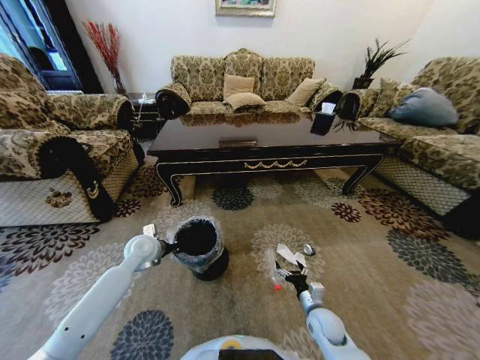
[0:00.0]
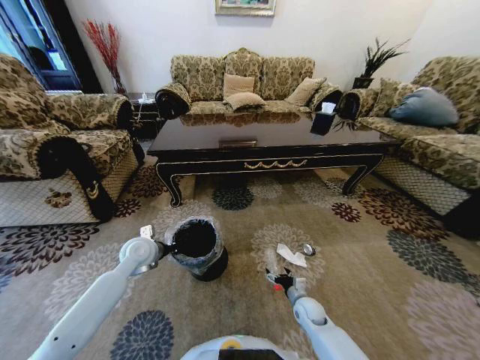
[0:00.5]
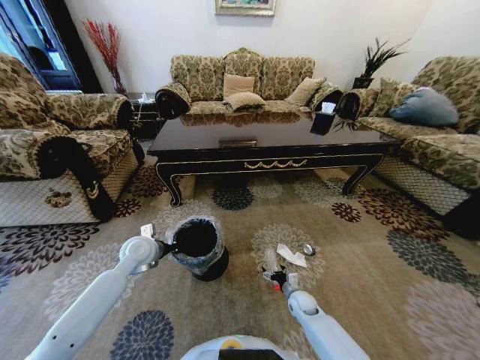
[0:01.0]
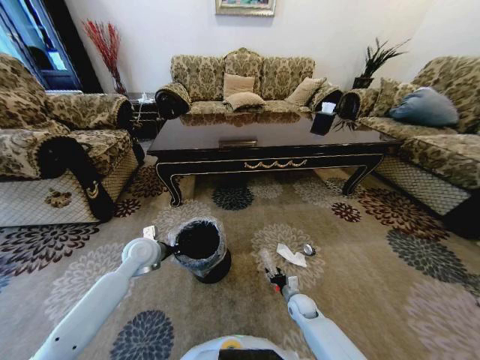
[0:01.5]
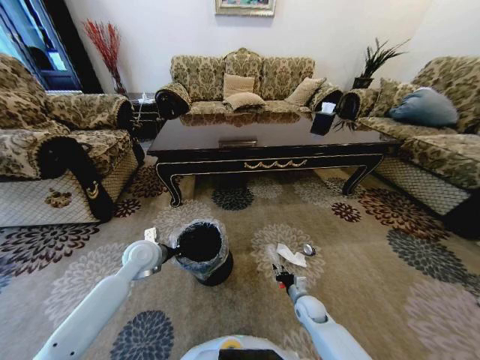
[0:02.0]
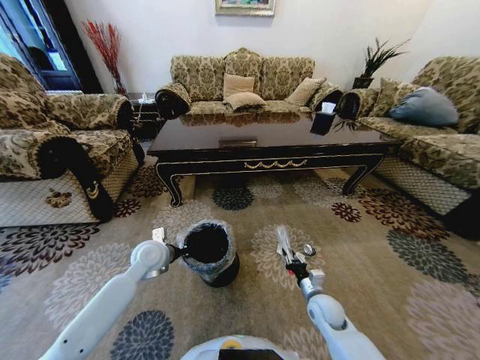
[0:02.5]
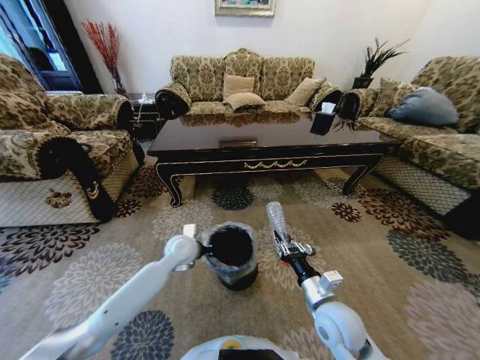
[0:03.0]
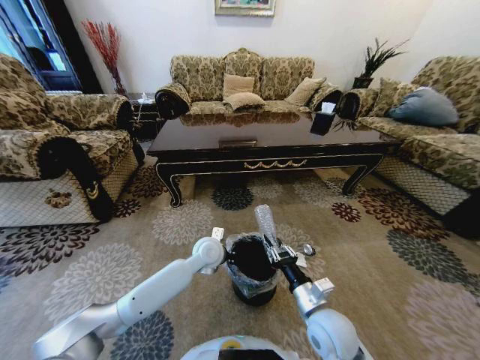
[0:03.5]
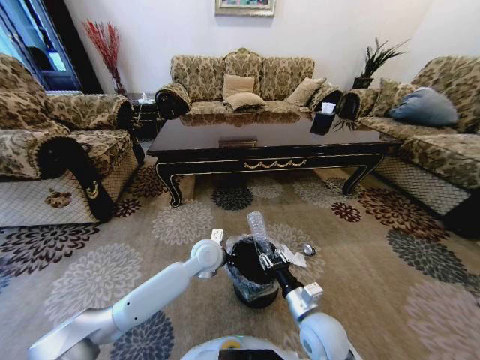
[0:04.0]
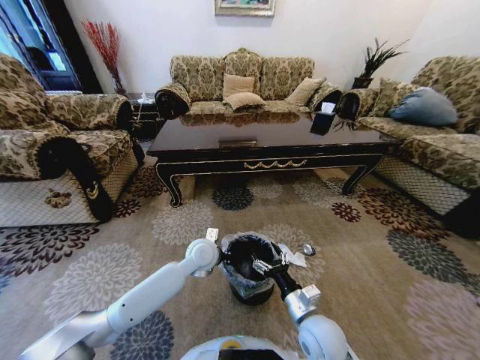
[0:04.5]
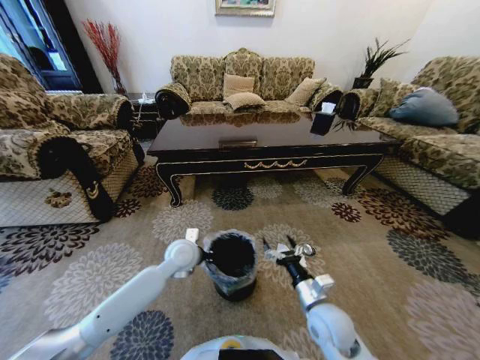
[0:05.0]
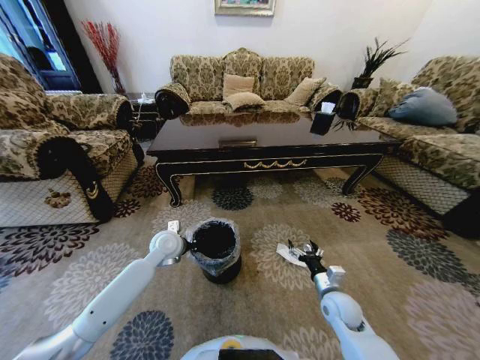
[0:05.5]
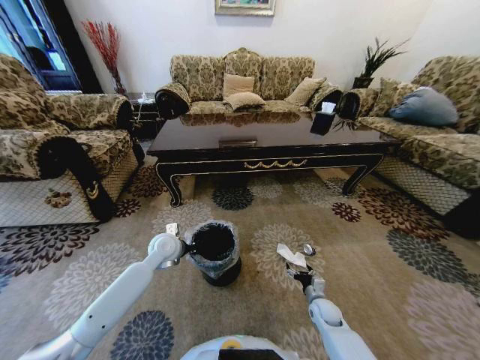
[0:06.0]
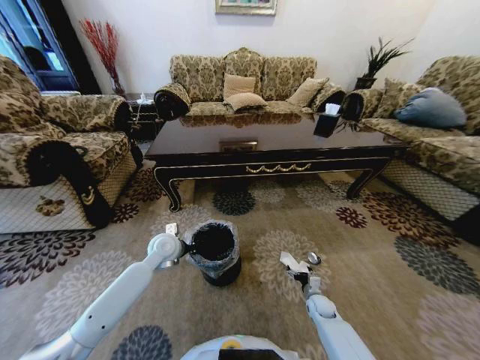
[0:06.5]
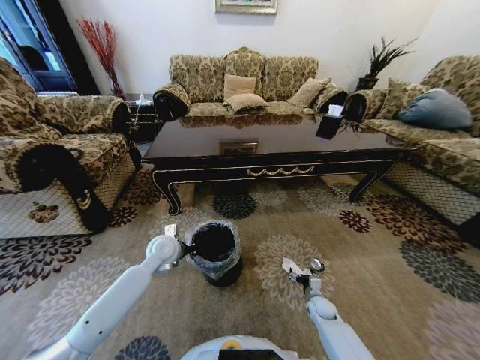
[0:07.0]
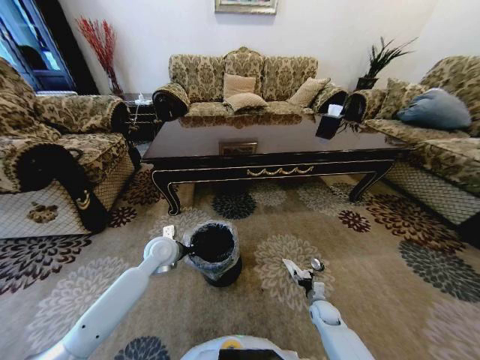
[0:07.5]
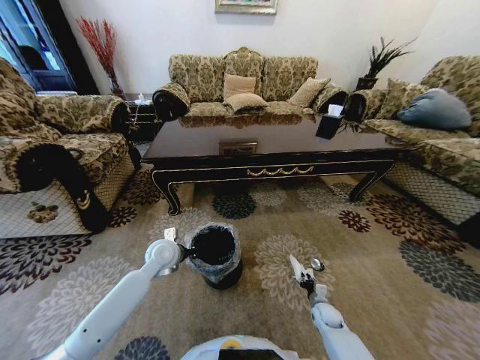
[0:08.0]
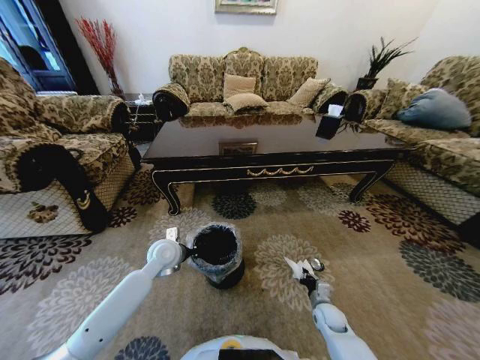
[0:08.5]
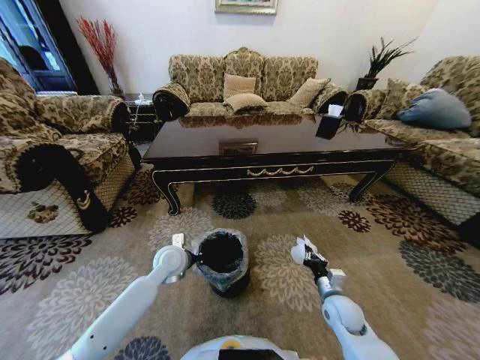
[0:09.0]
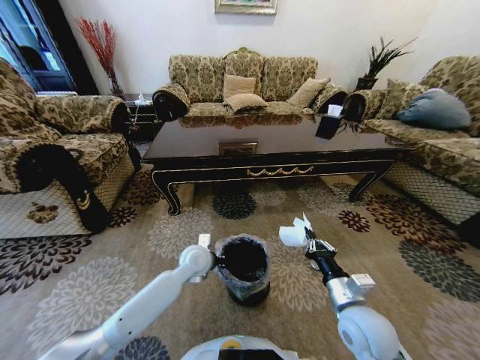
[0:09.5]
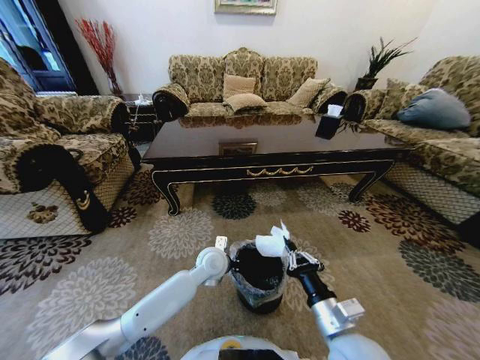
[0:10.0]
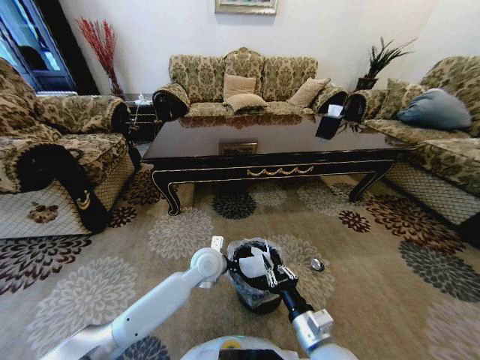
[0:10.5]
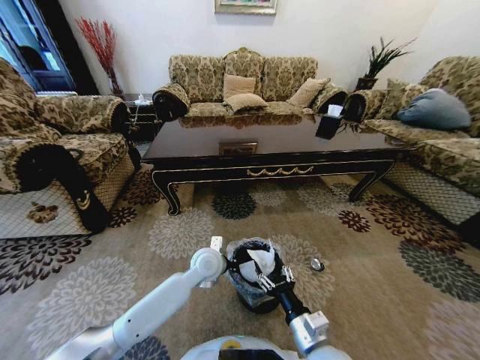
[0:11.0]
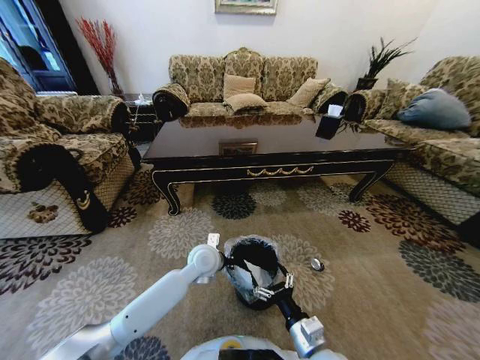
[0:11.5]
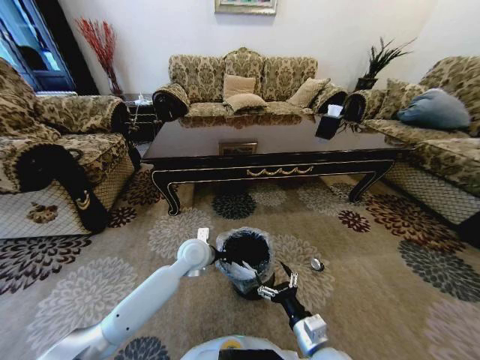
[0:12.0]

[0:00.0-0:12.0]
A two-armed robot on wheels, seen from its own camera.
Task of the whole recording: Move to the front of the table and pick up the trash from the floor, then place it into the trash bin.
0:00.0 to 0:02.0: The right gripper is displaced downward and forward by about 5 cm, and closes up.
0:02.0 to 0:04.0: The left gripper is displaced to the right by about 20 cm, while the right gripper moves upward, backward and to the left, approximately 25 cm.
0:04.0 to 0:06.0: The right gripper travels downward, to the right and forward by about 25 cm, and opens up; the left gripper heads to the left, covering some 15 cm.
0:06.0 to 0:08.0: The right gripper closes.
0:08.0 to 0:10.0: The left gripper heads to the right, covering some 15 cm; the right gripper goes roughly 35 cm upward, to the left and backward.
0:10.0 to 0:12.0: The left gripper shifts some 5 cm to the left, while the right gripper travels downward by some 10 cm, and opens its fingers.

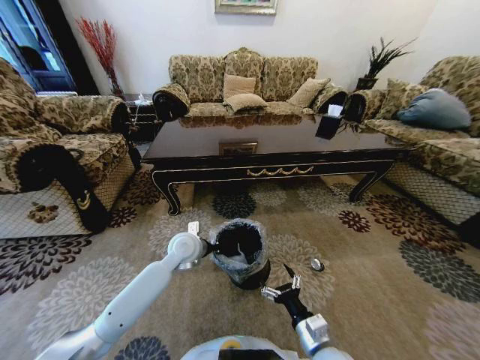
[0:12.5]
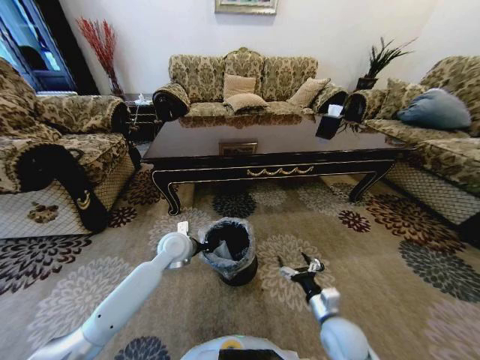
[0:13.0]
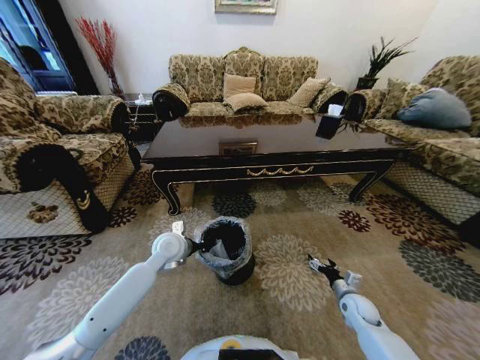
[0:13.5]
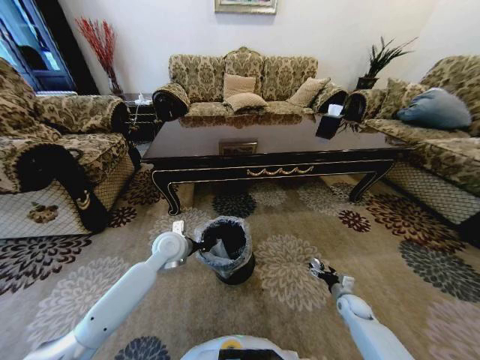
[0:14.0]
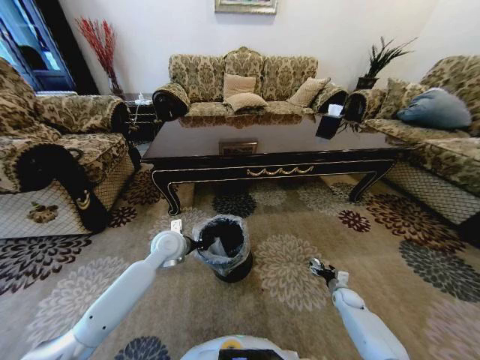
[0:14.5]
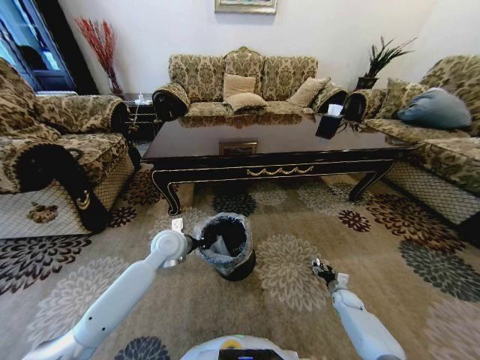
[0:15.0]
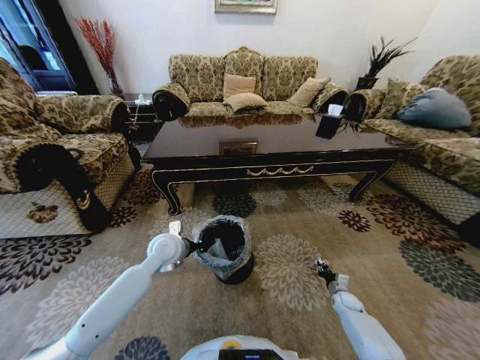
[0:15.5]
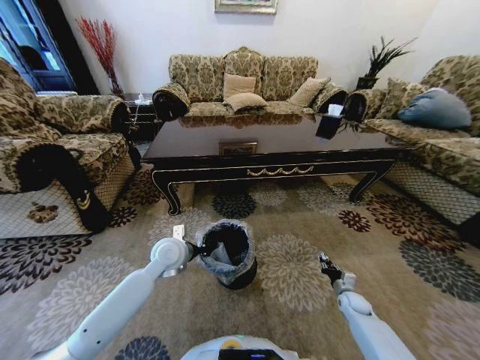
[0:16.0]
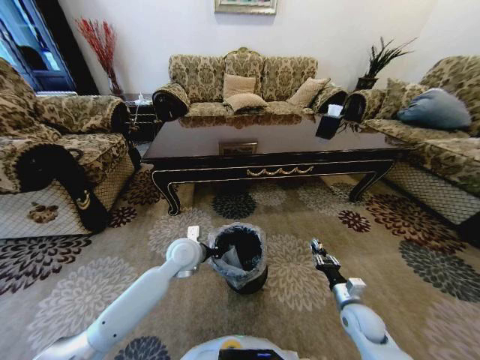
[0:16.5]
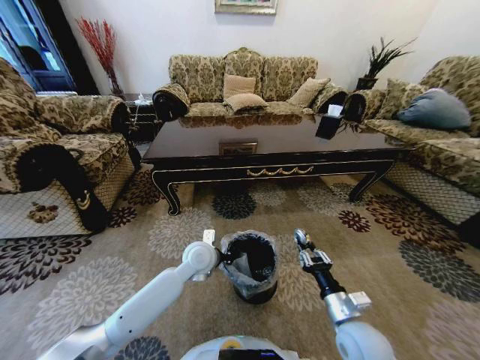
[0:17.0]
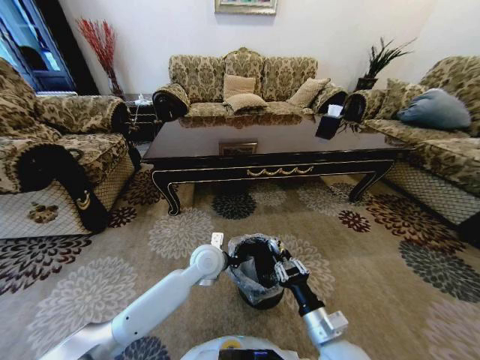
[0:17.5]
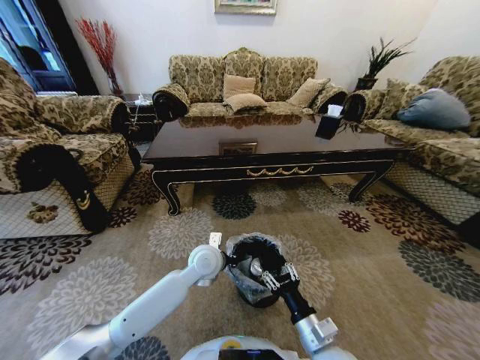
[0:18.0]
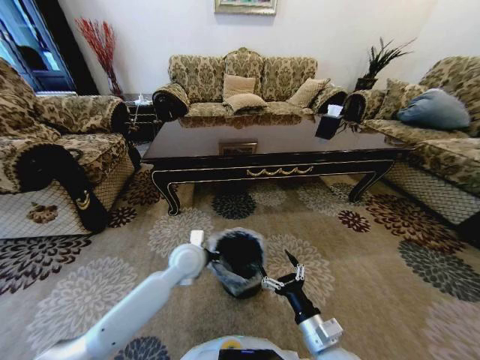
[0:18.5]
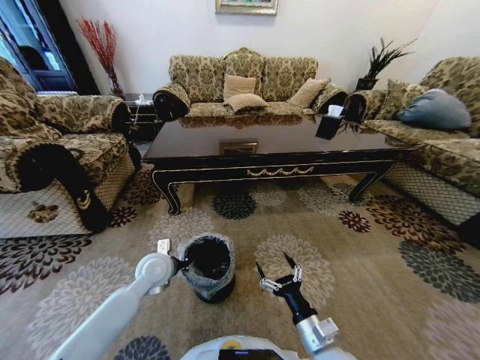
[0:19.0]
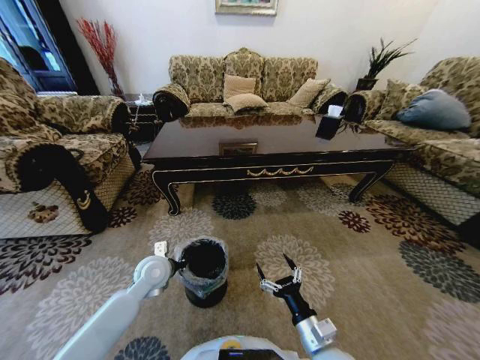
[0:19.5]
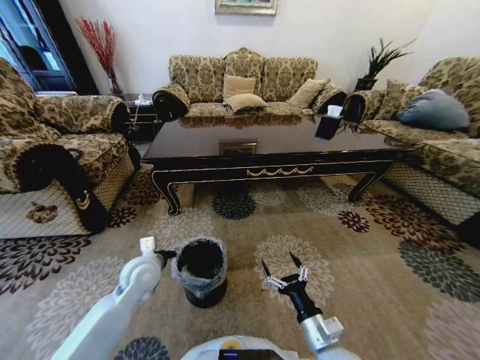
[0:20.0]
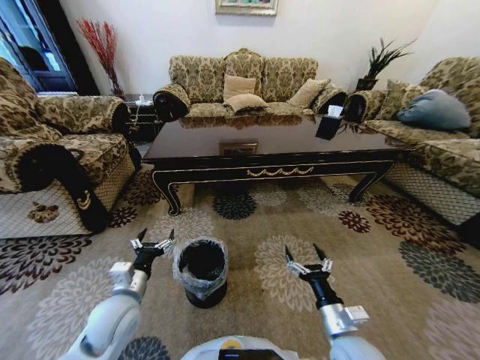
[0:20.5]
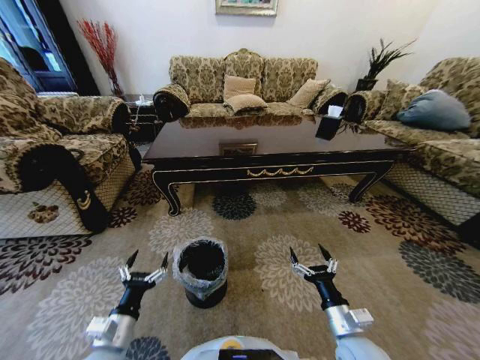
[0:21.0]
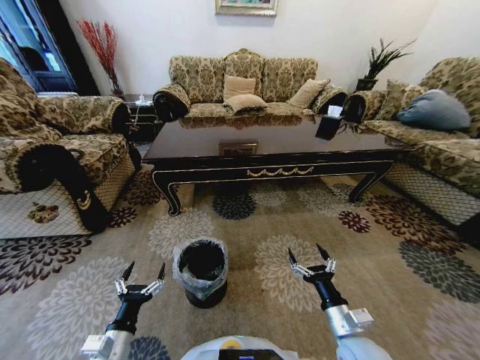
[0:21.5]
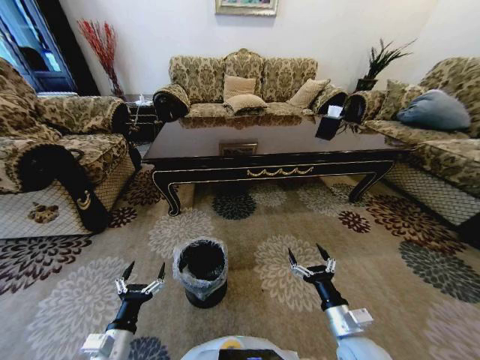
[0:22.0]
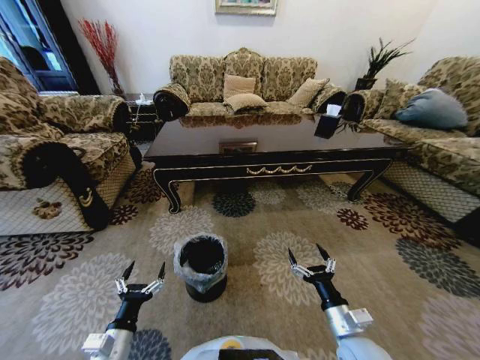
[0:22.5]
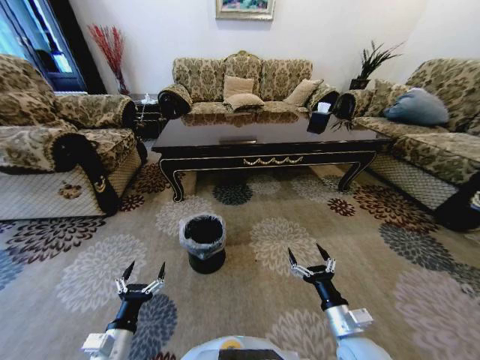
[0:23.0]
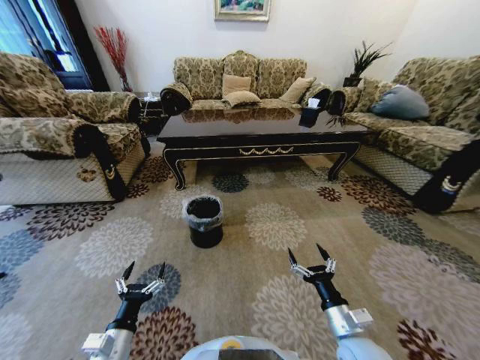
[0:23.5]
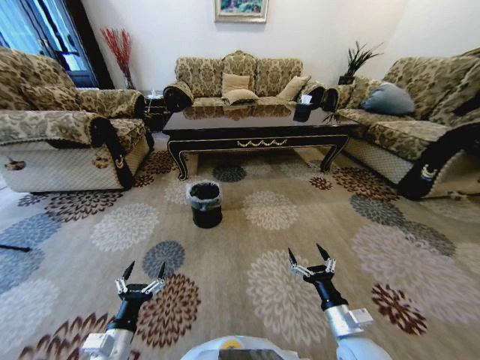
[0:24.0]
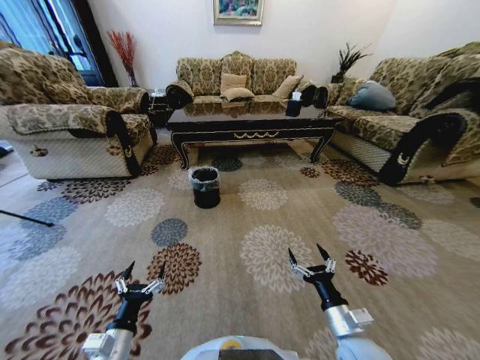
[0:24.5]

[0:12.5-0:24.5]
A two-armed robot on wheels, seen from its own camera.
Task of the whole recording: Move to the front of the table and pick up the trash from the floor, then place it into the trash bin.
0:12.5 to 0:14.5: The right gripper shifts approximately 40 cm to the right, downward and forward, while the left gripper heads to the left, covering approximately 5 cm.
0:14.5 to 0:16.5: The right gripper travels upward, backward and to the left by about 20 cm, and closes up, while the left gripper heads to the right, covering some 5 cm.
0:16.5 to 0:18.5: The right gripper moves to the left, backward and upward, about 20 cm, and opens.
0:18.5 to 0:20.5: The left gripper moves to the left and backward, about 20 cm, and opens up.
0:20.5 to 0:22.5: The left gripper is displaced backward and downward by approximately 15 cm.

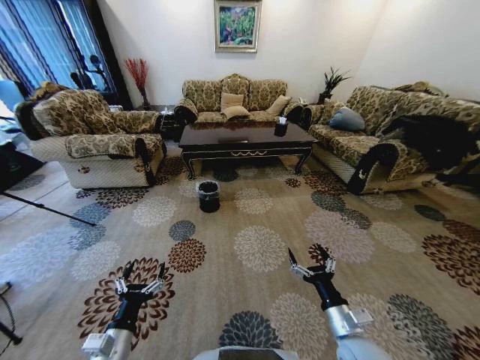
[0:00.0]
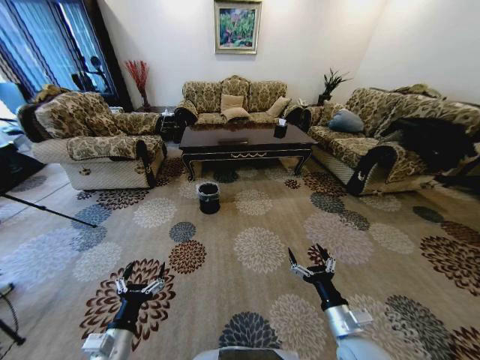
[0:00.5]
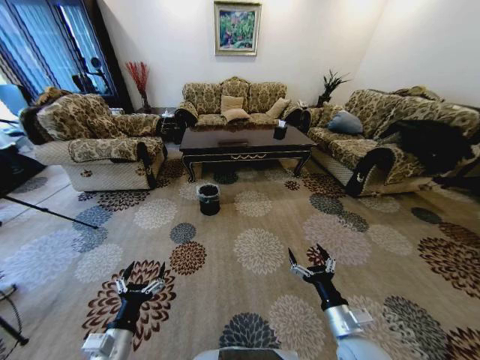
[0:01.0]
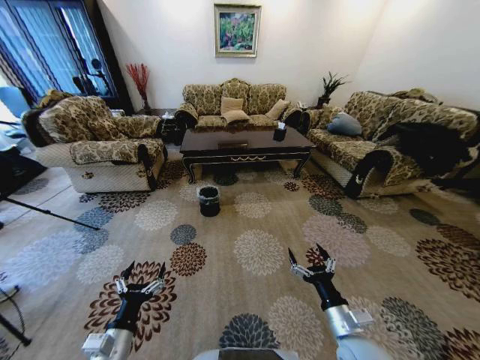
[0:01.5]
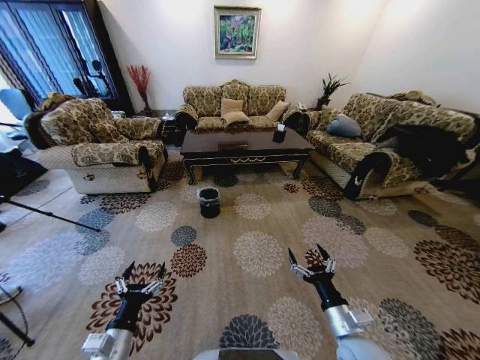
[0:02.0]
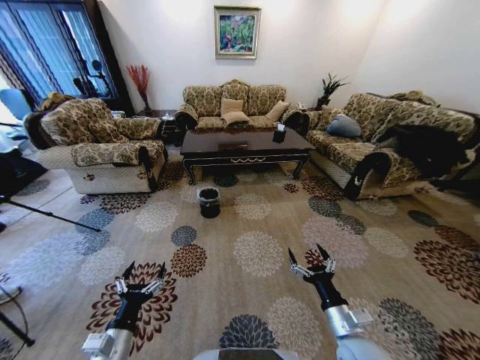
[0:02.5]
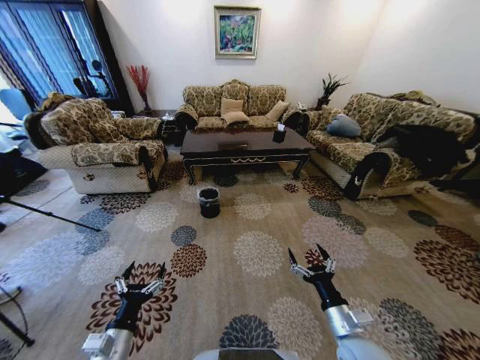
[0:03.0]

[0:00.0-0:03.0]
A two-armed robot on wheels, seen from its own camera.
Task of the whole recording: Move to the front of the table and pick up the trash from the floor, then place it into the trash bin.
0:01.5 to 0:03.0: Both grippers stay put.
